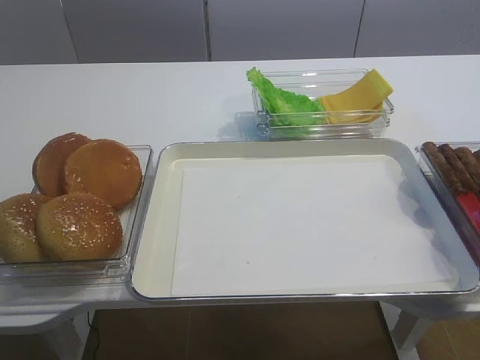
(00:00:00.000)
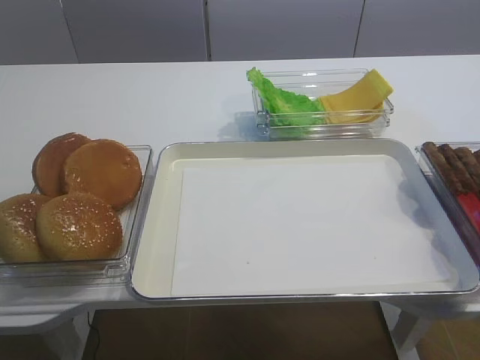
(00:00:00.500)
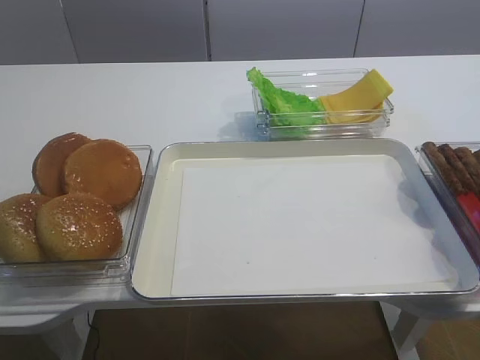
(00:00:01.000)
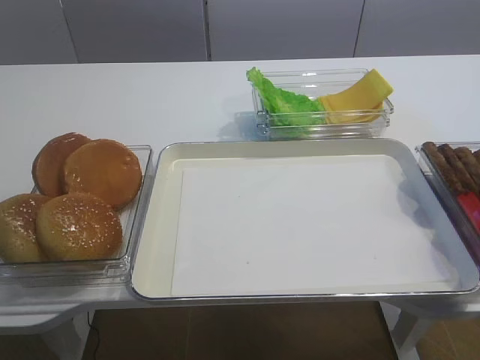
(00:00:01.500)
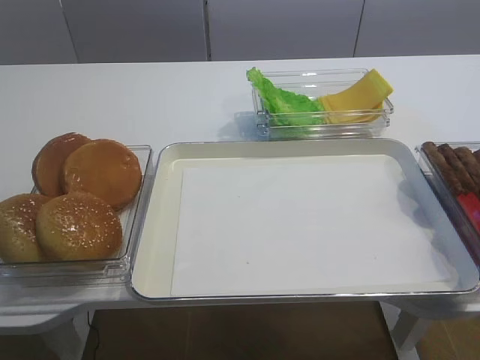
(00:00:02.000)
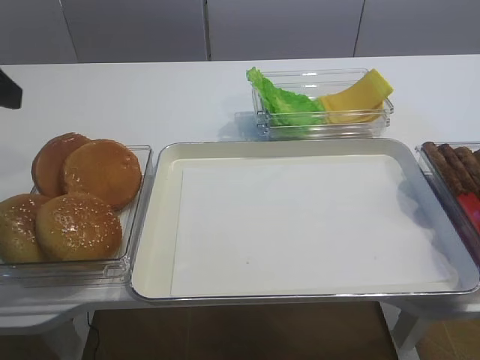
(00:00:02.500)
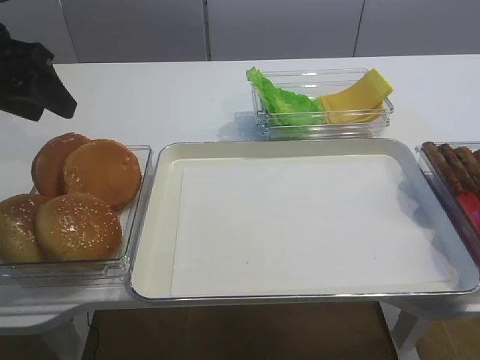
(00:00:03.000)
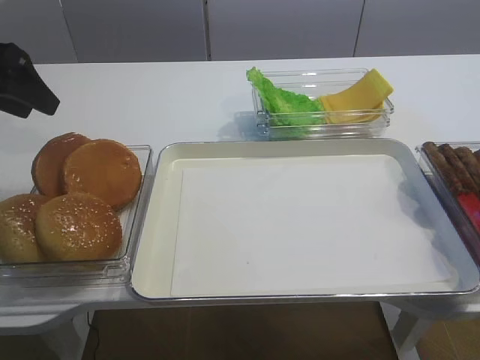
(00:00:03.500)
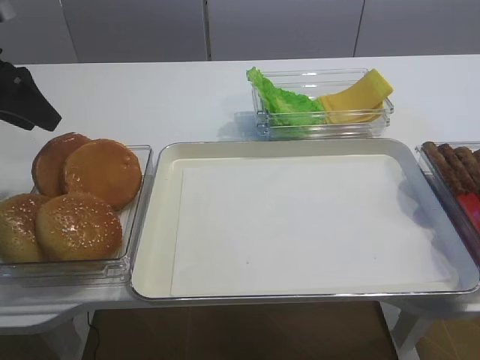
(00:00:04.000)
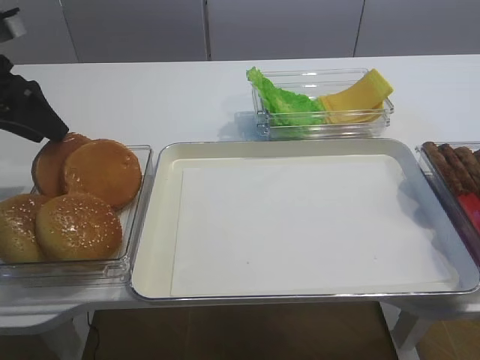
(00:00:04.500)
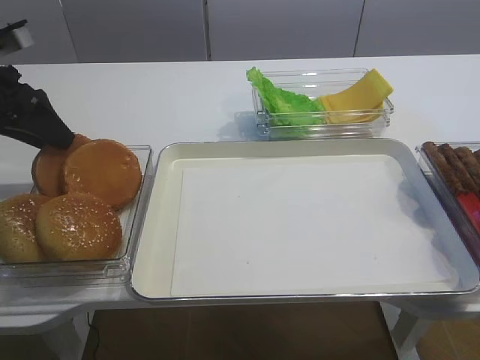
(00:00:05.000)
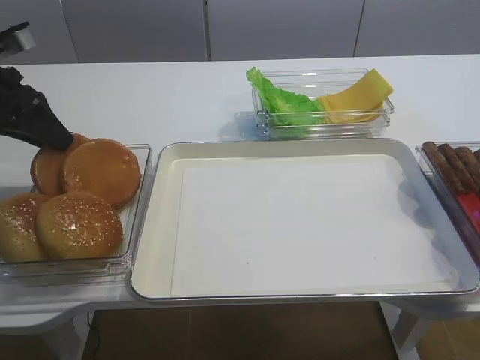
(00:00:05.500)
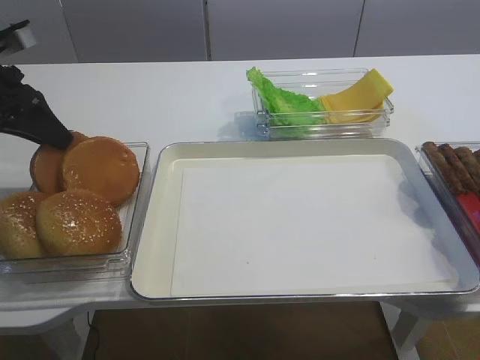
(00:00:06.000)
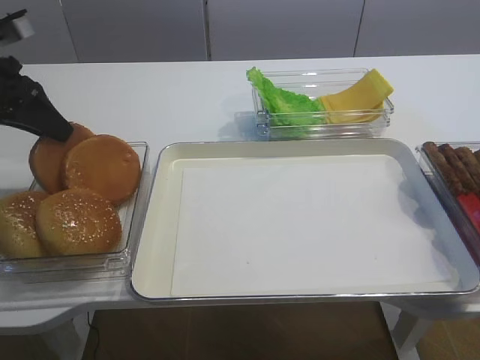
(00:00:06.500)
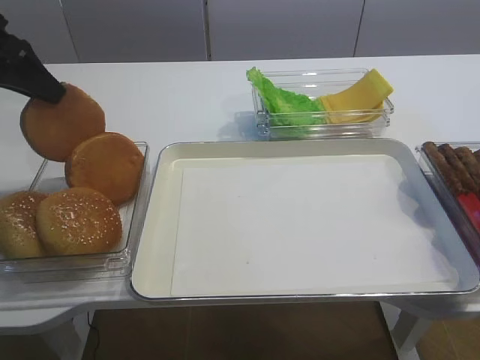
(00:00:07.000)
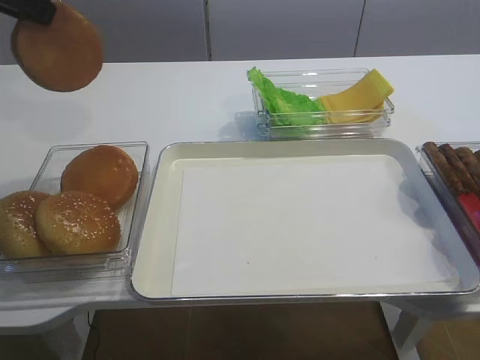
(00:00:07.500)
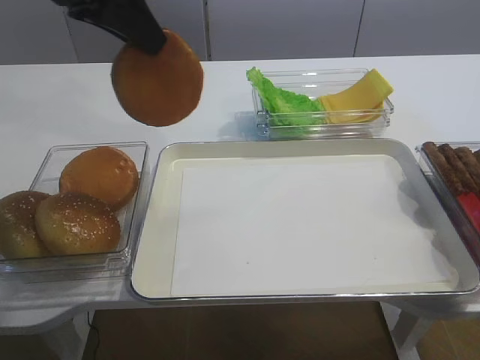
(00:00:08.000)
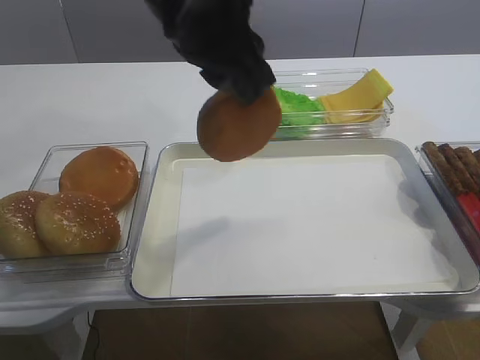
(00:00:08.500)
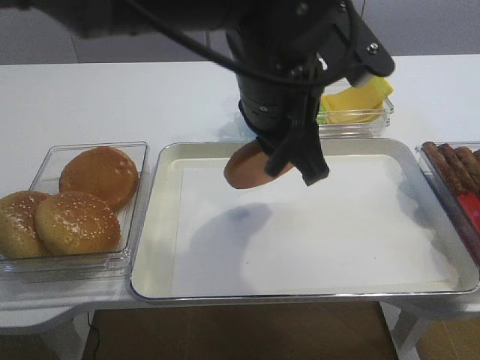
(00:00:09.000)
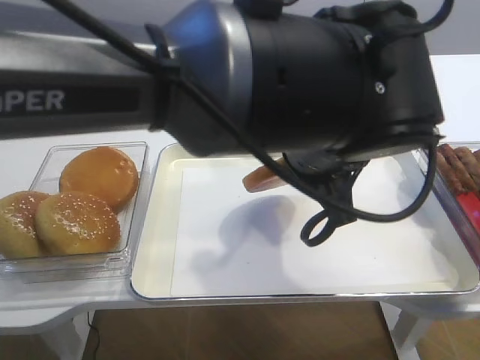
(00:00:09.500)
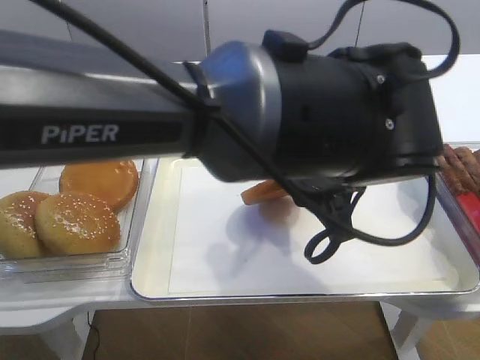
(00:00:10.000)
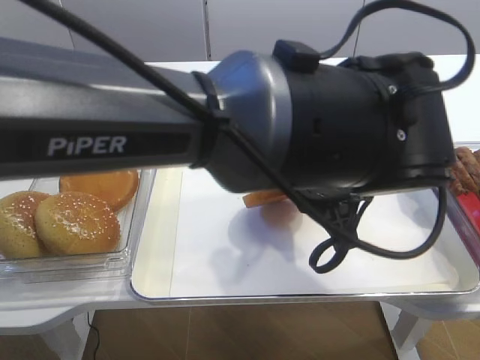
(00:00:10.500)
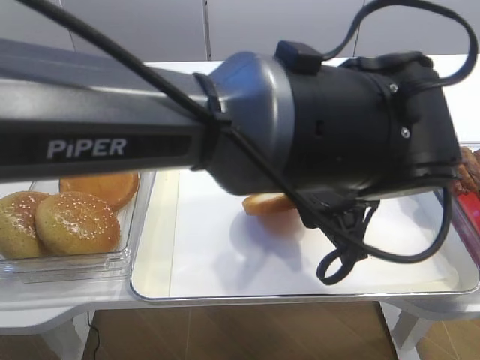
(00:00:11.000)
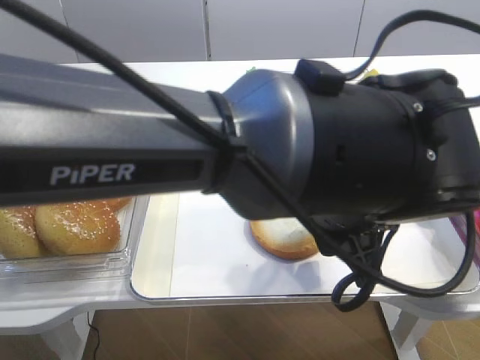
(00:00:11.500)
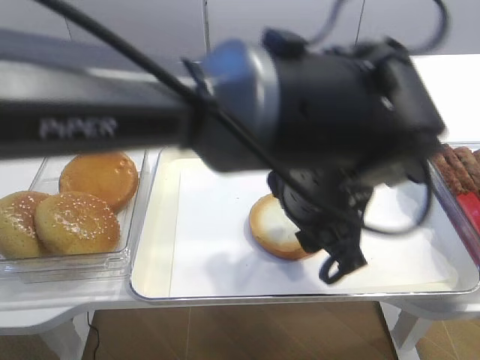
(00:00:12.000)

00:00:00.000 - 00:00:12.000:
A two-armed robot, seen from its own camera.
Step, 00:00:00.000 - 00:00:07.000: Pick up the bread slice with the left gripper.
00:00:02.000 - 00:00:04.000: The left gripper travels forward by some 25 cm.
00:00:04.000 - 00:00:06.000: The left gripper closes up.
00:00:06.000 - 00:00:08.000: The left gripper travels upward and to the right by about 20 cm.
00:00:08.000 - 00:00:10.000: The left gripper travels to the right and downward by roughly 25 cm.
00:00:10.000 - 00:00:12.000: The left gripper opens its fingers.

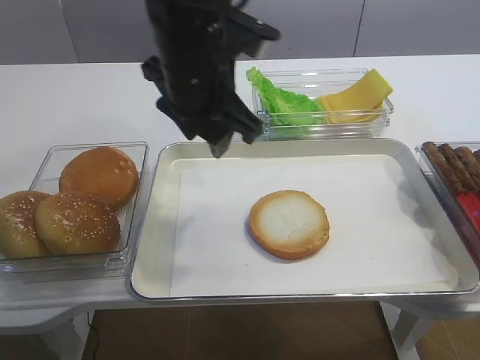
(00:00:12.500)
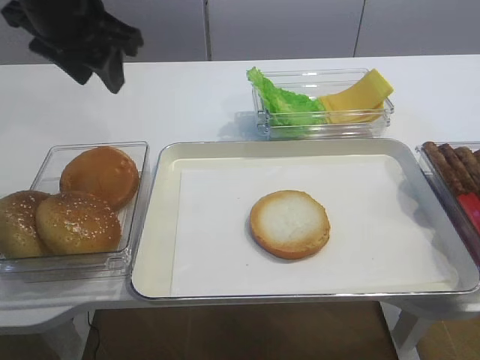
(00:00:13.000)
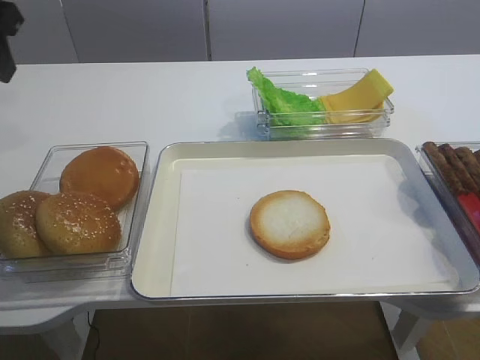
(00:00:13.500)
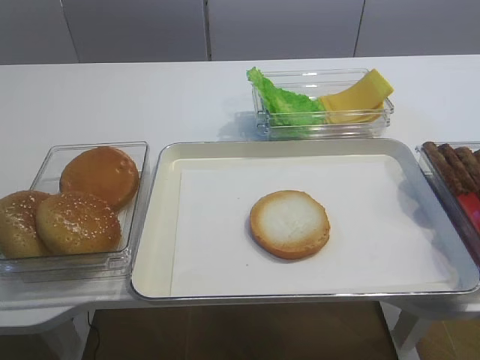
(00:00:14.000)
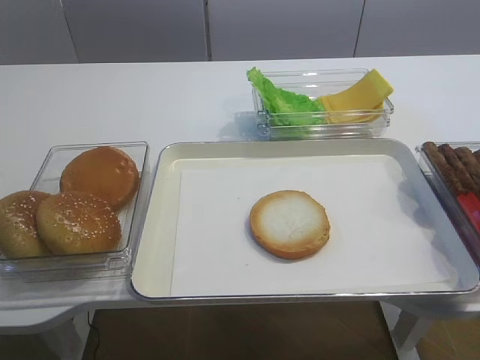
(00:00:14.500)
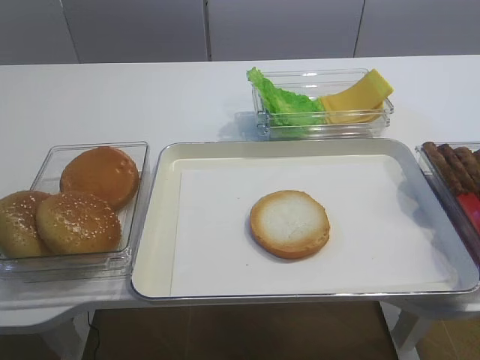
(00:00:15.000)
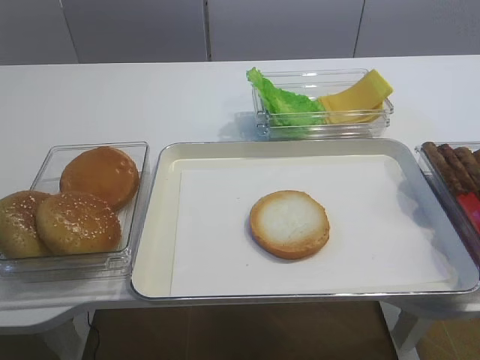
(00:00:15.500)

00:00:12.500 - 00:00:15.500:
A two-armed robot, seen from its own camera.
00:00:12.500 - 00:00:14.000: The left gripper is displaced to the left and backward by some 30 cm.

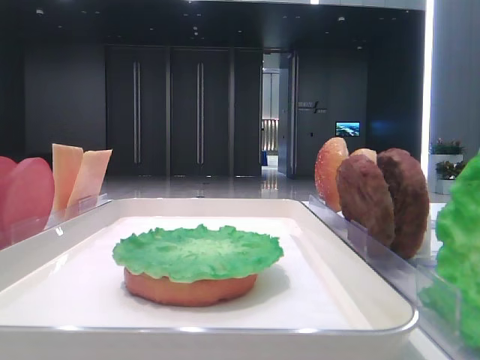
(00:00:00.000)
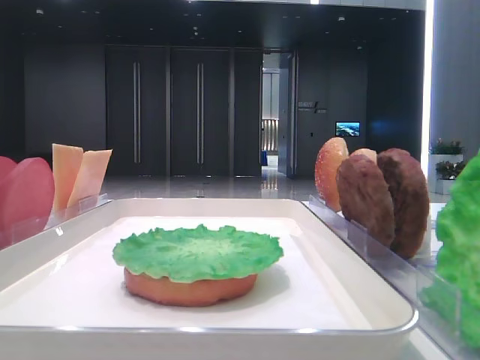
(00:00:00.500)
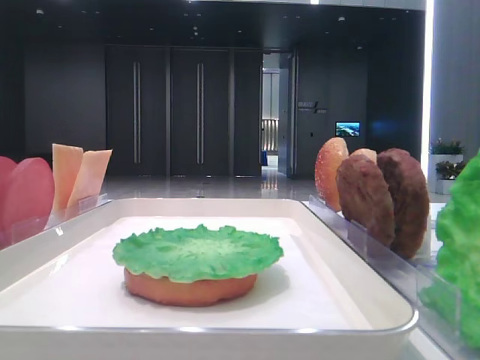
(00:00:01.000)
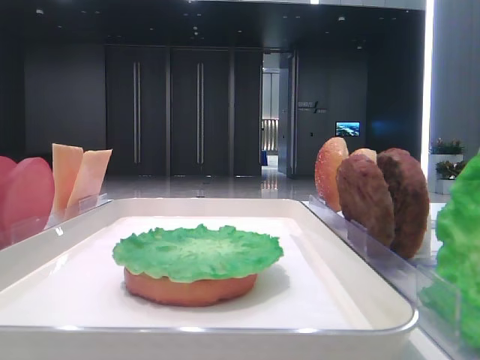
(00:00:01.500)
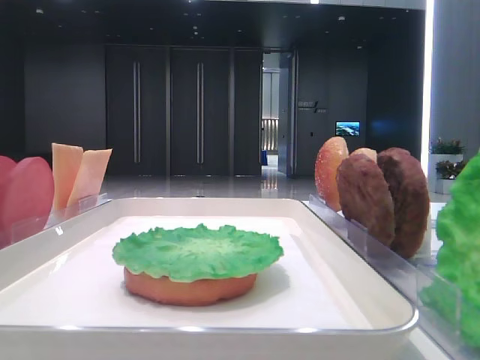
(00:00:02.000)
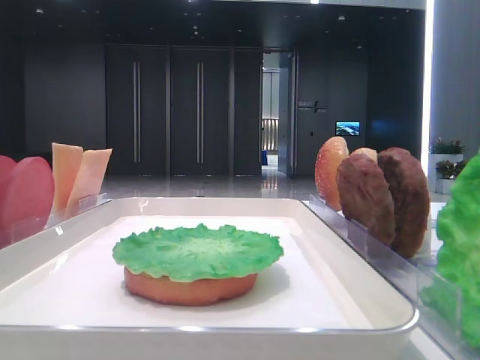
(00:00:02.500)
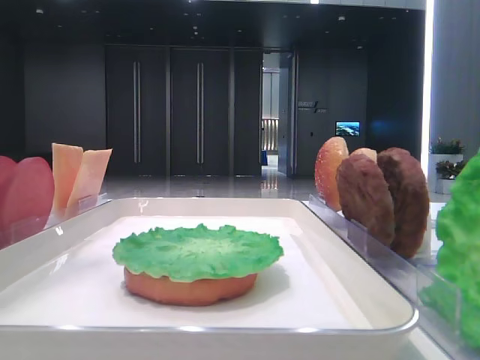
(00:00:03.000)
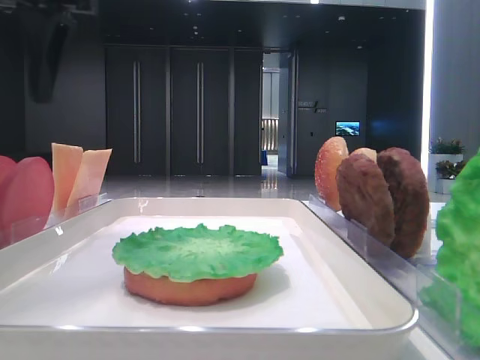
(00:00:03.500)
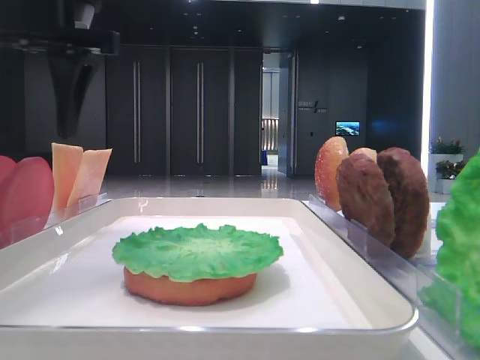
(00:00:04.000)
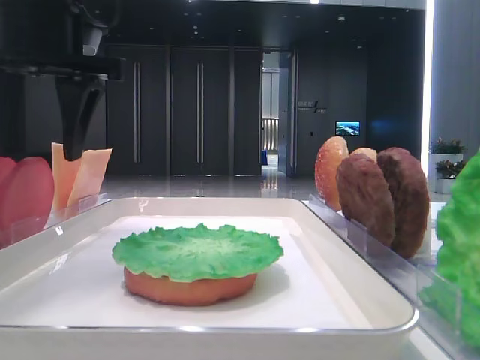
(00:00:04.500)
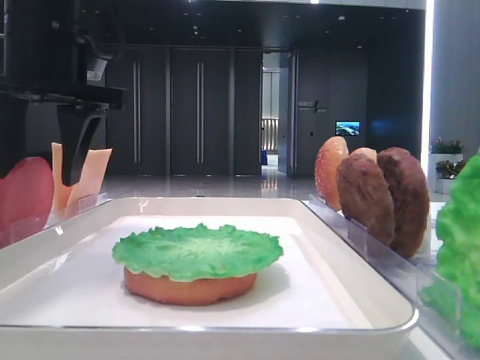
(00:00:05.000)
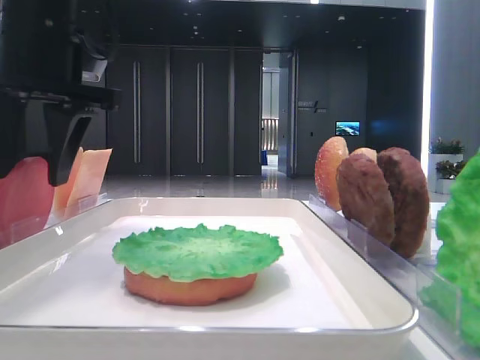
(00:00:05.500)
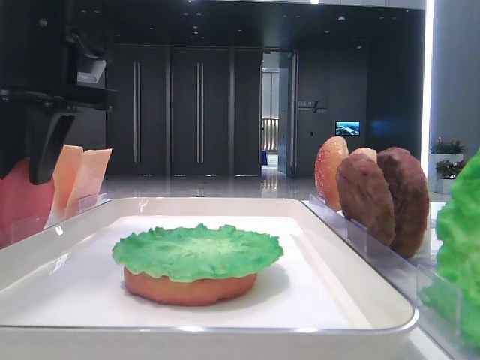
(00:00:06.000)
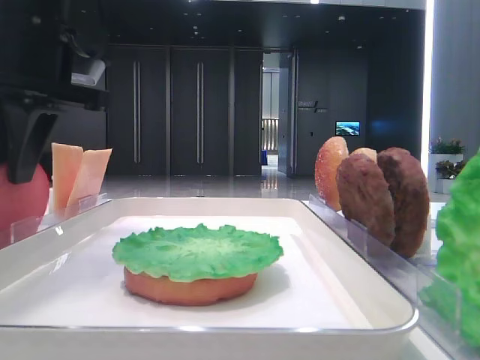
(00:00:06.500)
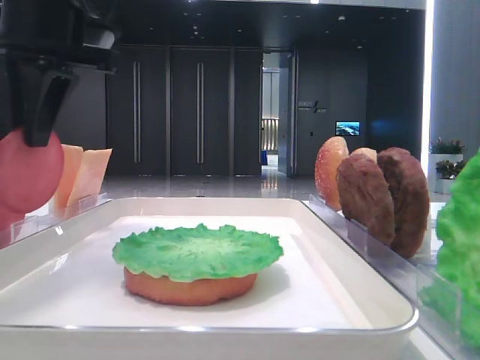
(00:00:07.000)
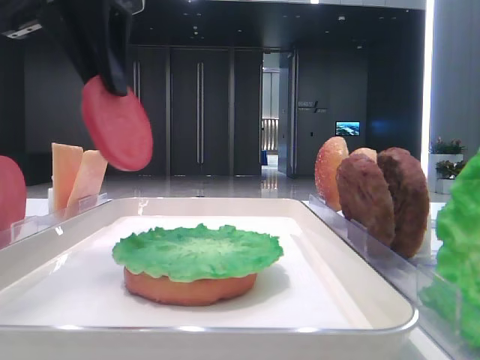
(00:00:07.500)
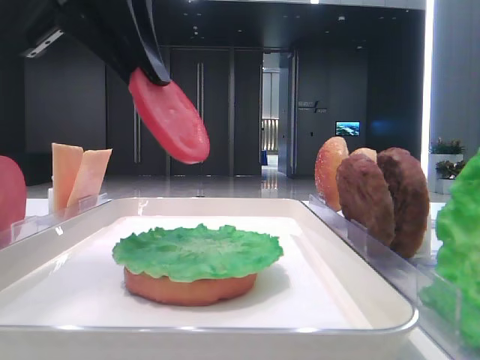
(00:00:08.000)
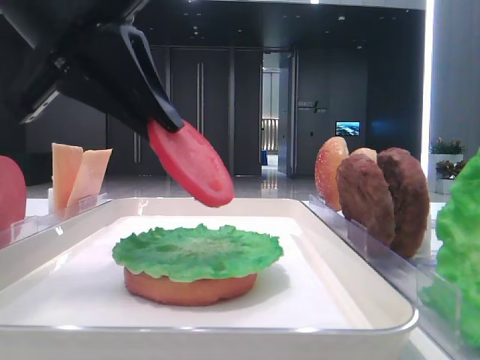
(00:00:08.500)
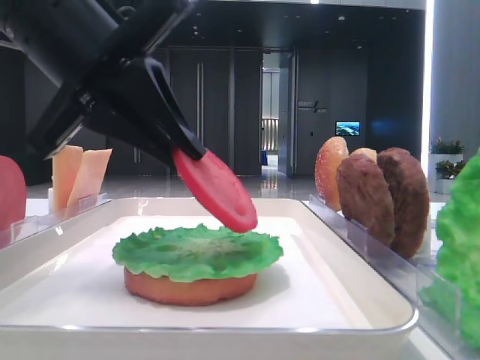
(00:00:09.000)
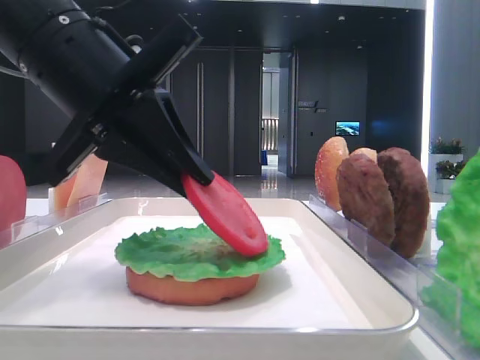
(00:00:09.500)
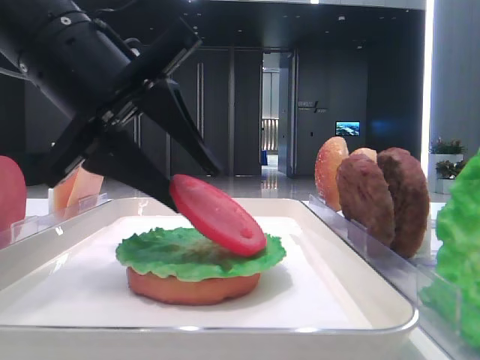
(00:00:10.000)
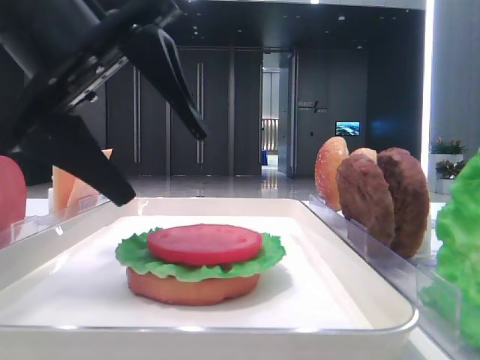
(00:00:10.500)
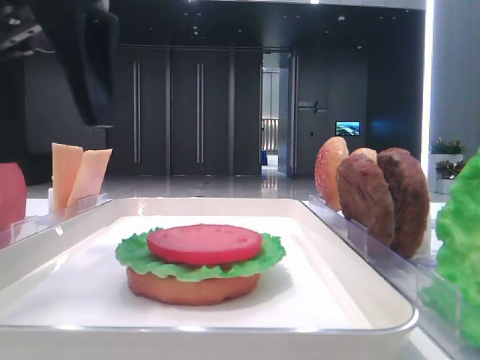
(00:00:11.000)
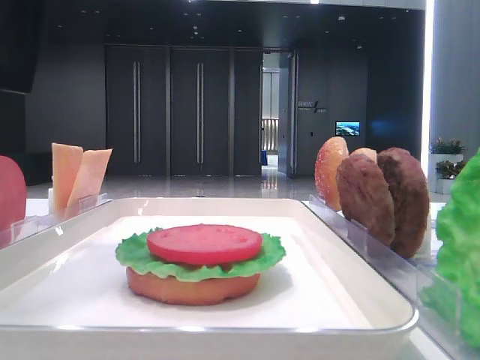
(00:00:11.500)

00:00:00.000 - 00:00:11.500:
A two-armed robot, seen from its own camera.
Step, 00:00:00.000 - 00:00:06.000: Pick up the tomato slice with the left hand.
Step, 00:00:06.500 - 00:00:10.000: Place the tomato slice on the lettuce leaf with the left hand.
00:00:02.000 - 00:00:04.000: The left gripper travels to the right, forward and downward by some 20 cm.
00:00:04.000 - 00:00:06.000: The left gripper closes its fingers.
00:00:06.000 - 00:00:07.500: The left gripper shifts about 5 cm upward, and closes its fingers.
00:00:07.500 - 00:00:09.500: The left gripper is displaced downward and backward by roughly 10 cm.
00:00:09.500 - 00:00:11.500: The left gripper shifts approximately 10 cm upward and to the left, and opens up.
